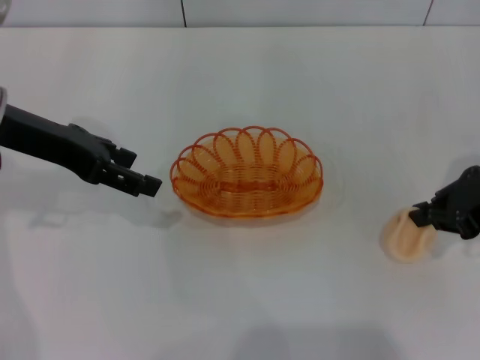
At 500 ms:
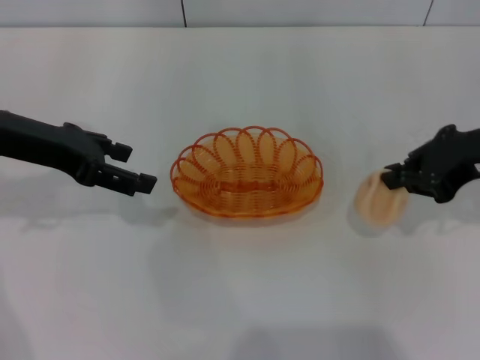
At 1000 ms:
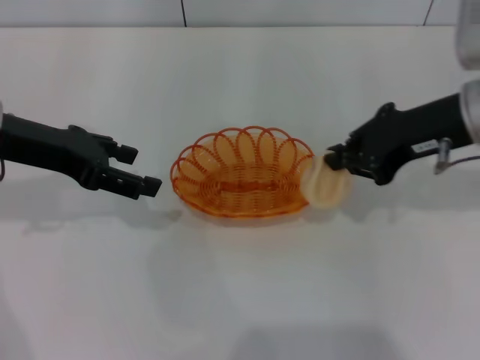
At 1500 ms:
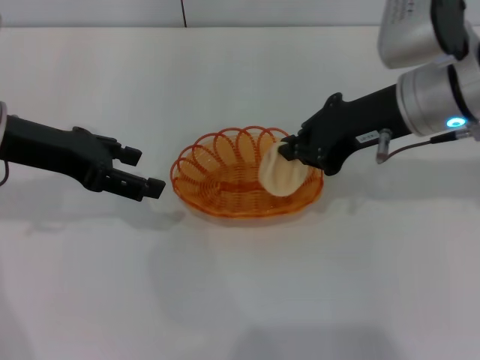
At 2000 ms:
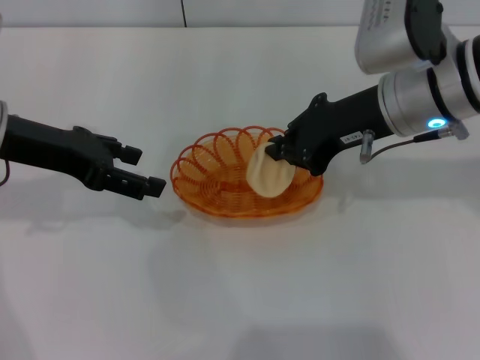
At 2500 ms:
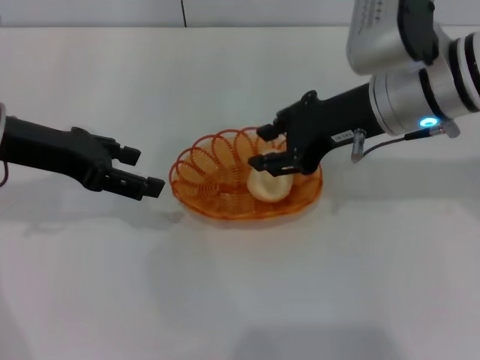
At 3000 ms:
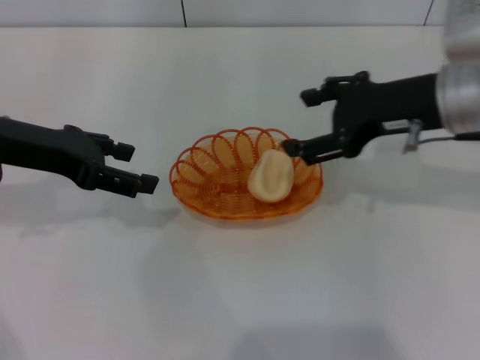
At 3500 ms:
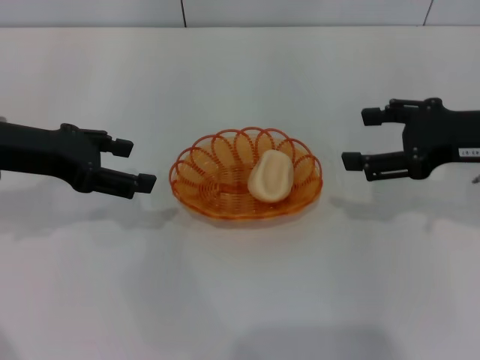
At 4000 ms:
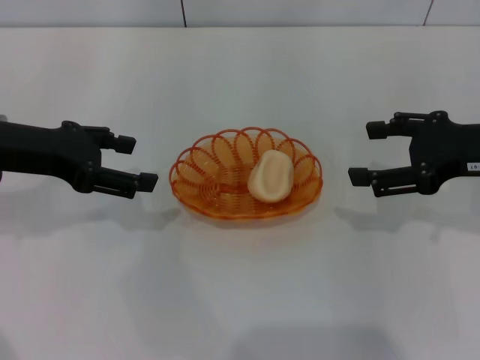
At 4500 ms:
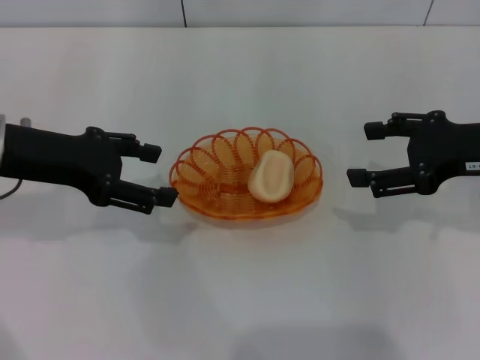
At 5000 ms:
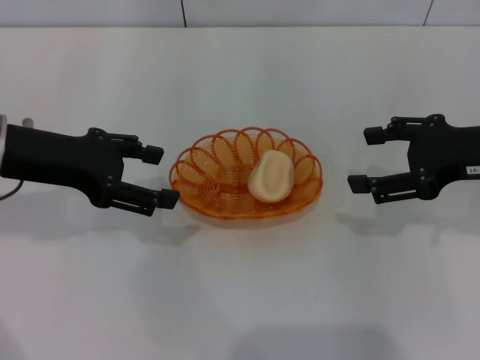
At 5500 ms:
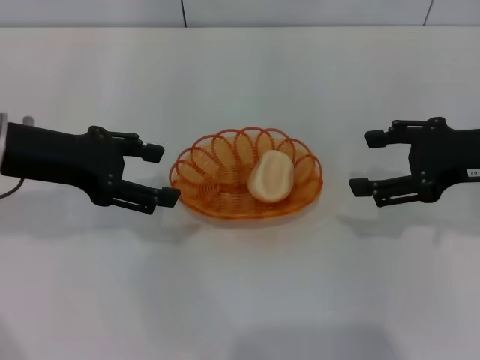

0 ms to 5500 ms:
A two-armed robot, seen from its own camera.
Step, 500 ms to 3000 ms: Place the egg yolk pastry into the basket with the right gripper.
0 ms to 2000 ms: The right gripper travels to the left by about 15 cm.
2000 ms to 3500 ms: The right gripper goes approximately 10 cm to the right, and opens up.
3500 ms to 5500 ms: There are only small adjustments of the grippers.

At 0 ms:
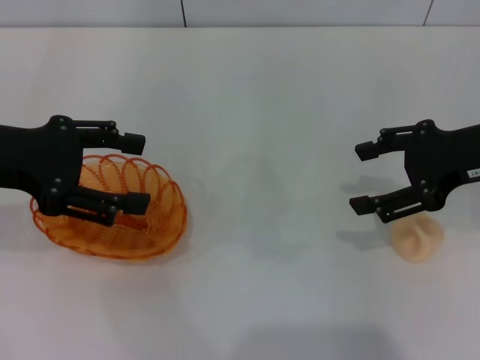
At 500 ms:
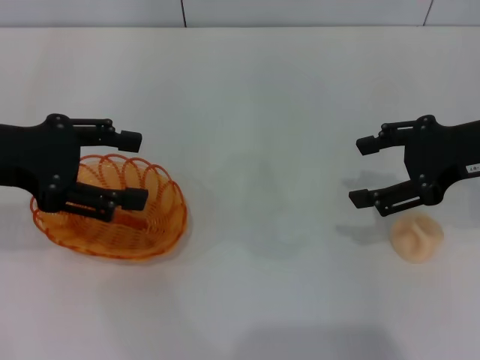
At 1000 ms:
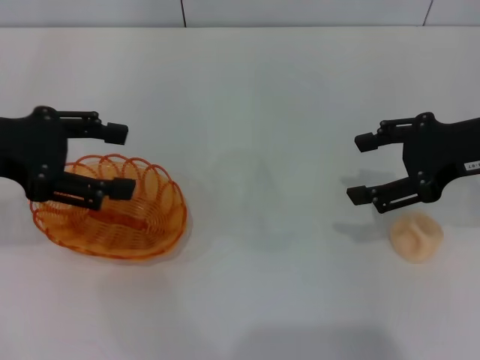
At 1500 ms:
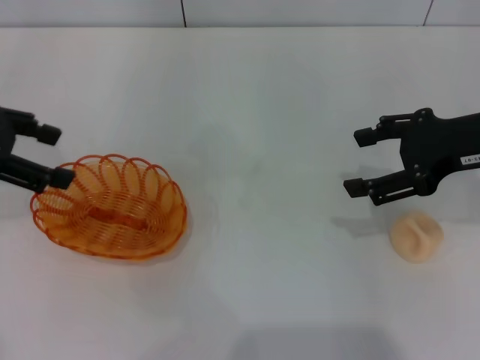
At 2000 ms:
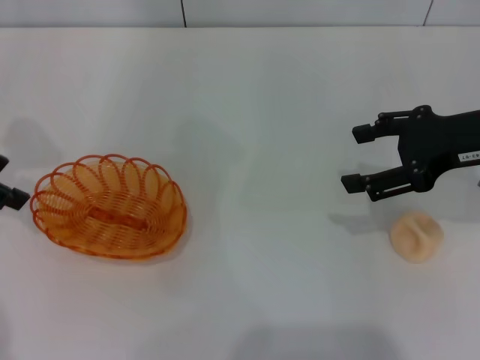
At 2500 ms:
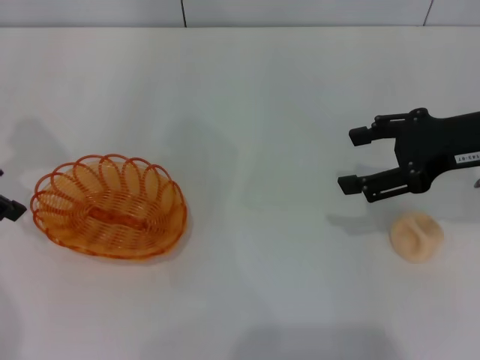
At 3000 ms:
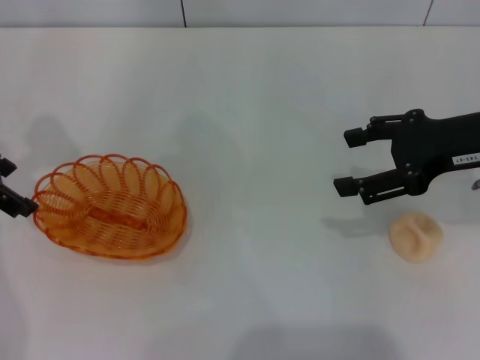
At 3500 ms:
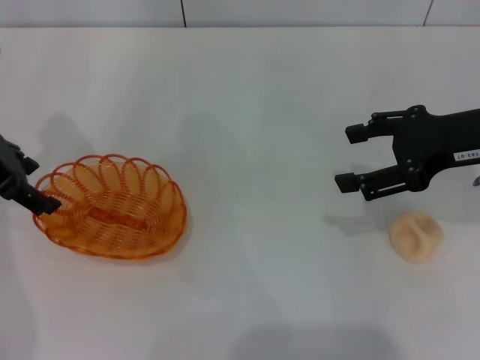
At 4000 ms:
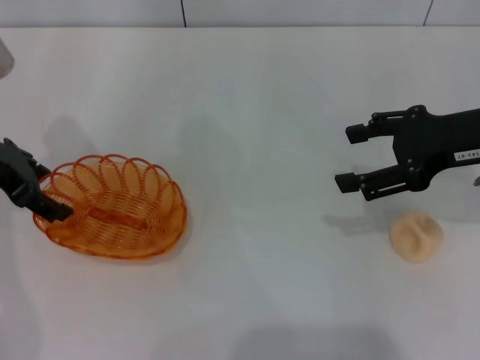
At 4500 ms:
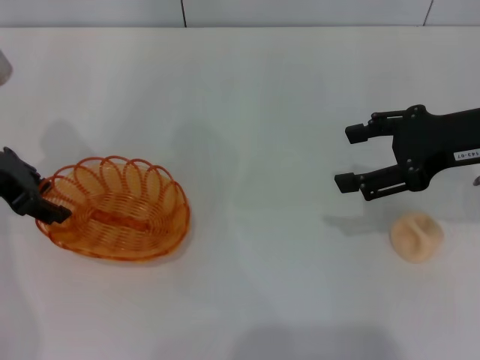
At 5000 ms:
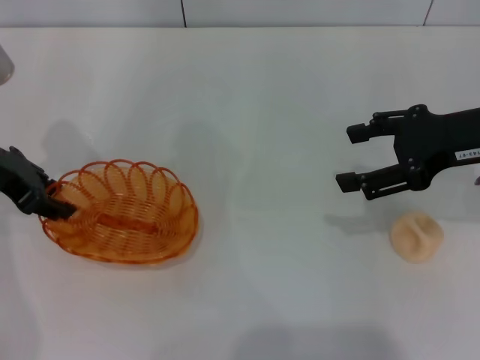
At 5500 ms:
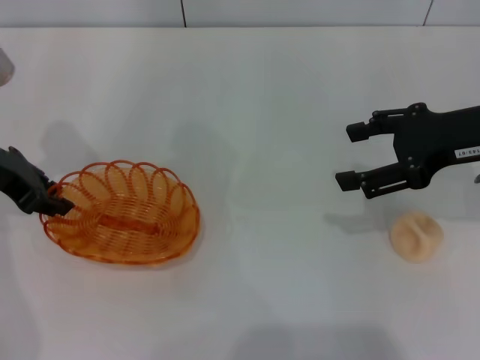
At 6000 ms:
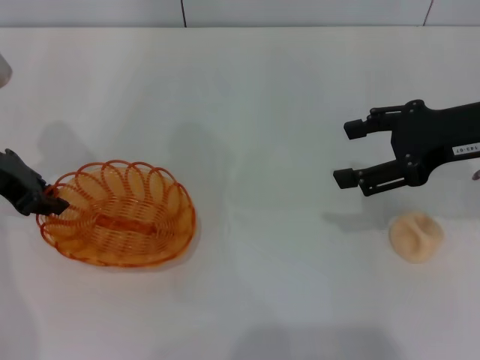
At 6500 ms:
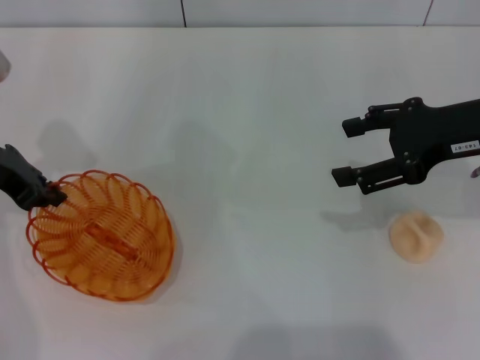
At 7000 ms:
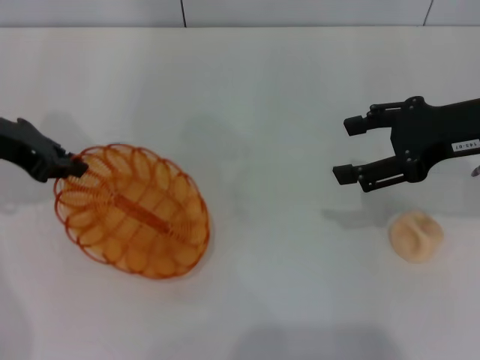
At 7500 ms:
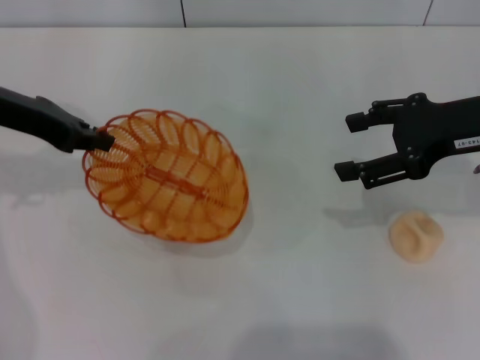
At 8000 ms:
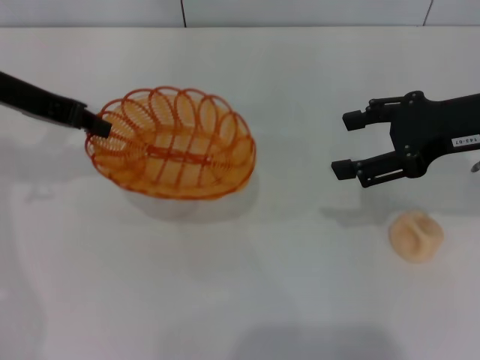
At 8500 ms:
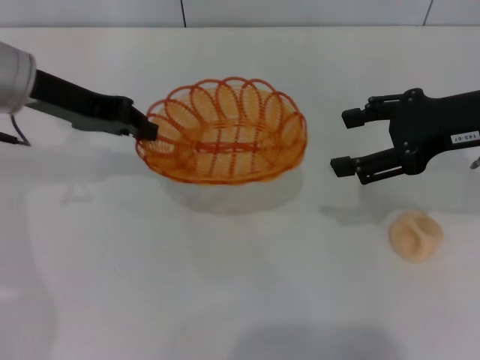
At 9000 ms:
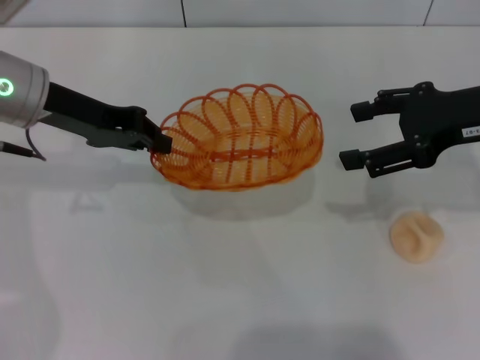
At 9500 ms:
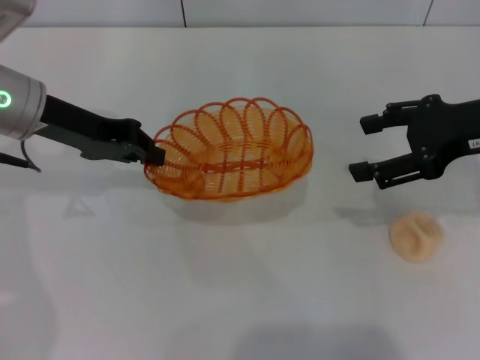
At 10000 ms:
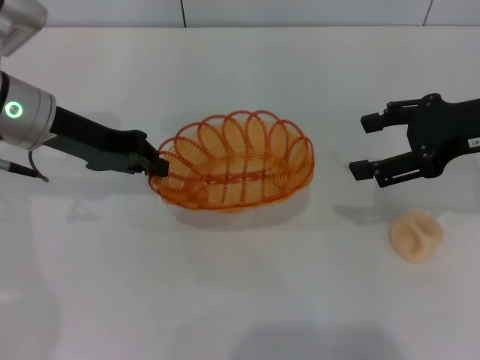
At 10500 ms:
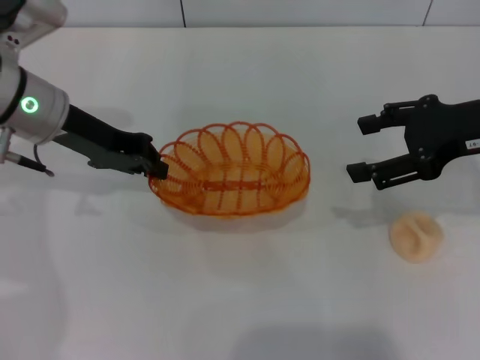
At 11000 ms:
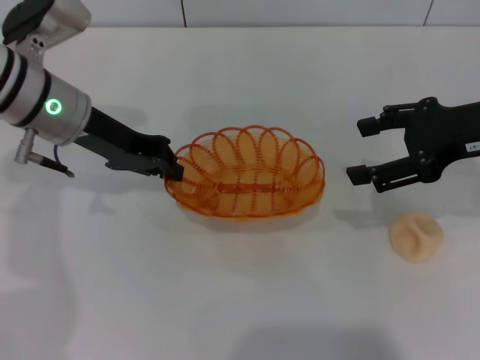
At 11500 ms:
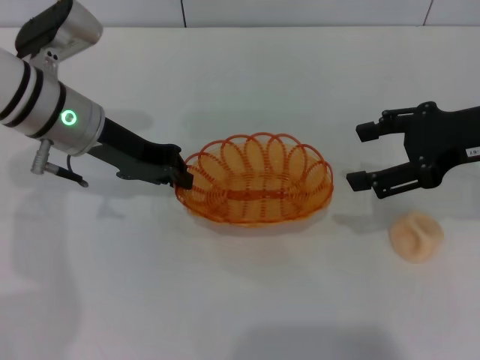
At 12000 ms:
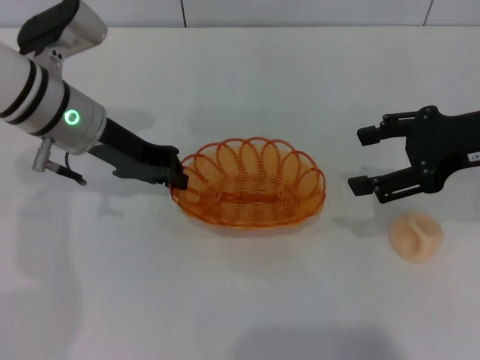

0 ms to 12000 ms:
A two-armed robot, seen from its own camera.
Step, 0 ms to 8500 ms: Pick up the basket with the left gripper.
0 ms to 2000 ms: The left gripper travels to the left by some 5 cm.
2000 ms to 4000 ms: The left gripper is displaced downward by approximately 5 cm.
4000 ms to 6000 ms: The left gripper closes up.
6000 ms to 8000 ms: The left gripper ends up roughly 5 cm from where it was.
8000 ms to 10000 ms: The left gripper changes place by roughly 5 cm.
10000 ms to 12000 ms: The grippers make only small movements.

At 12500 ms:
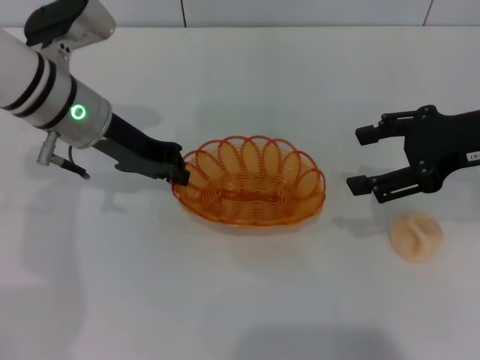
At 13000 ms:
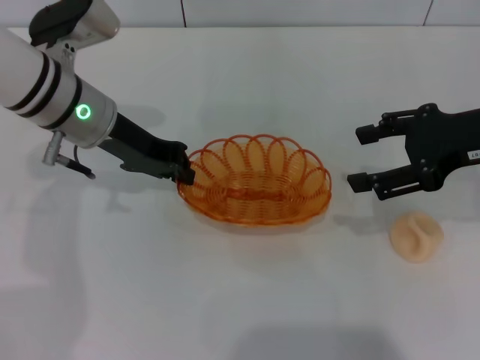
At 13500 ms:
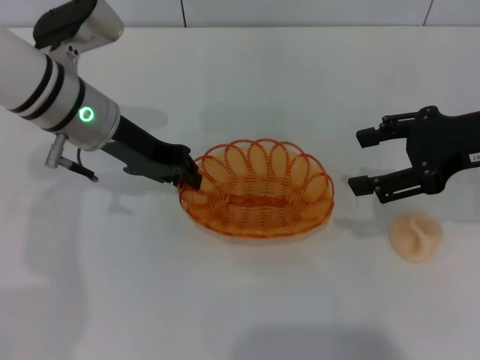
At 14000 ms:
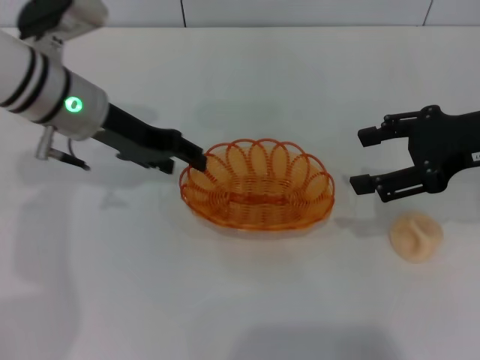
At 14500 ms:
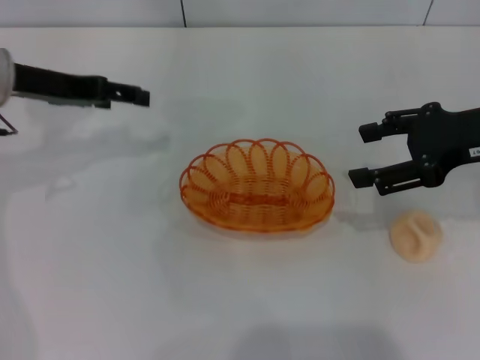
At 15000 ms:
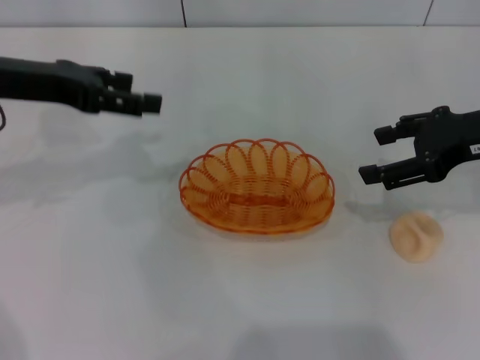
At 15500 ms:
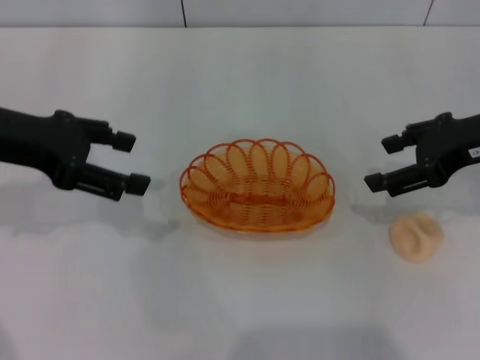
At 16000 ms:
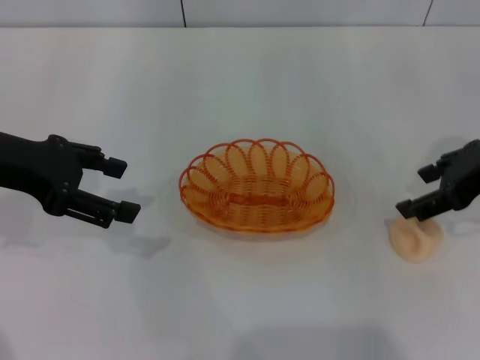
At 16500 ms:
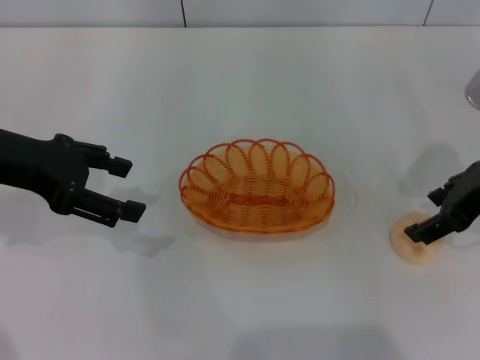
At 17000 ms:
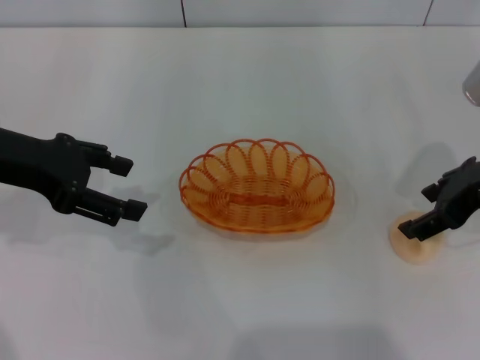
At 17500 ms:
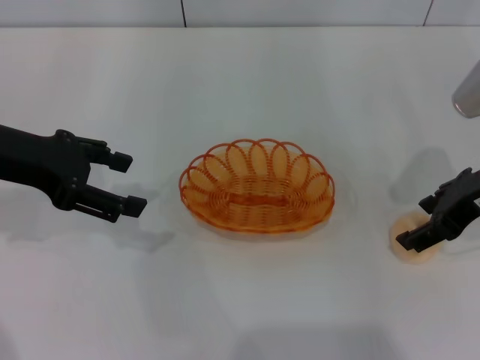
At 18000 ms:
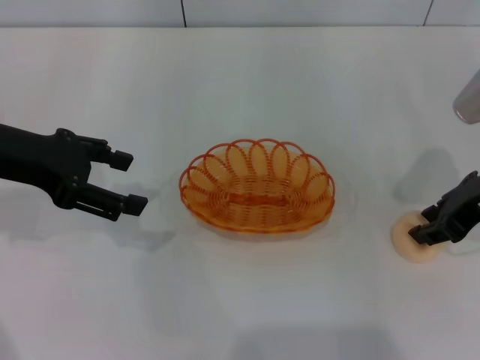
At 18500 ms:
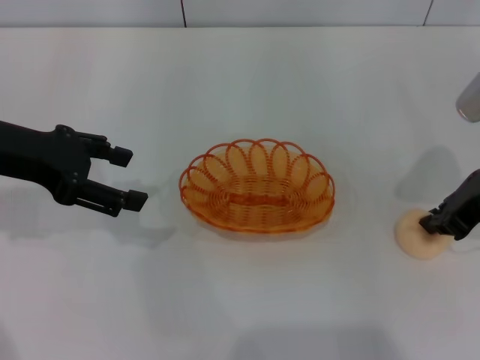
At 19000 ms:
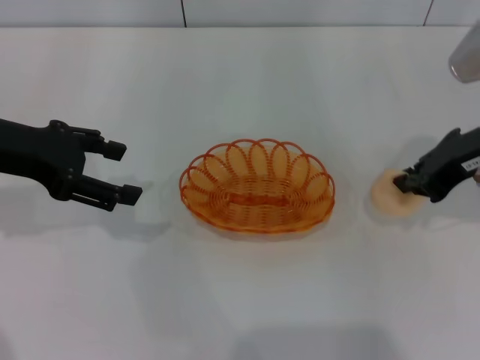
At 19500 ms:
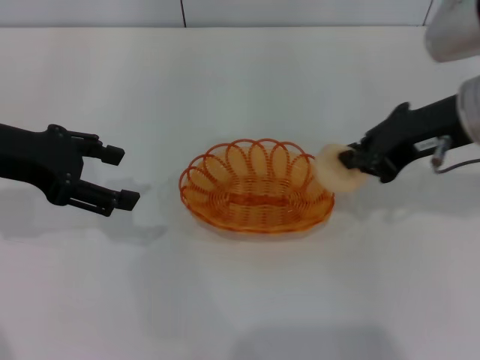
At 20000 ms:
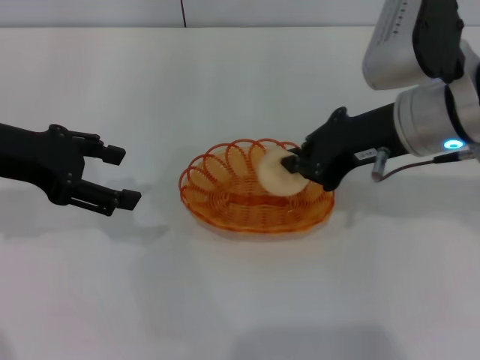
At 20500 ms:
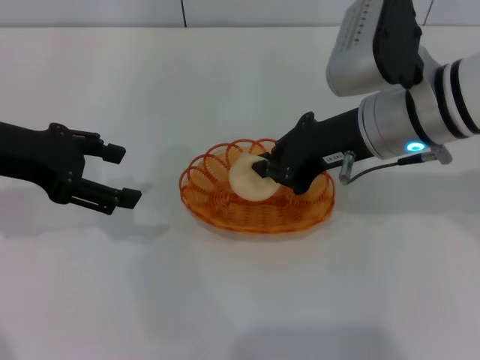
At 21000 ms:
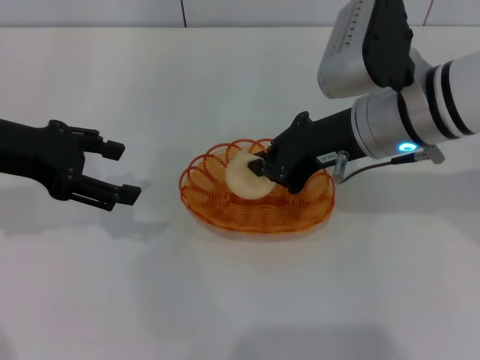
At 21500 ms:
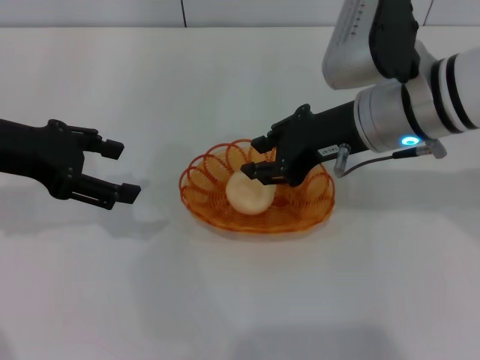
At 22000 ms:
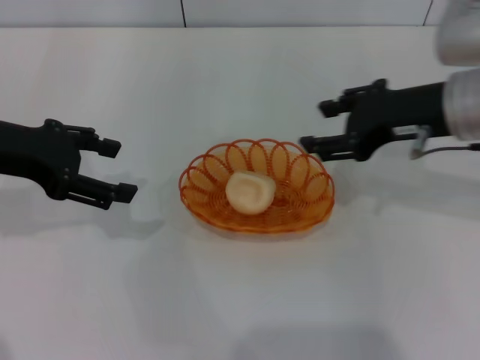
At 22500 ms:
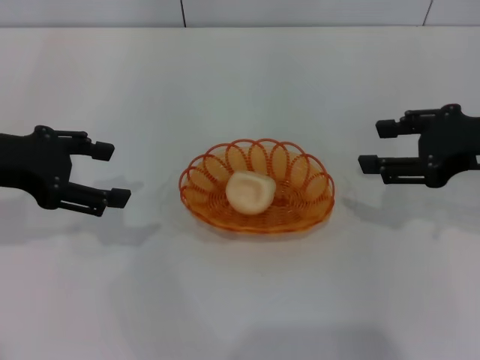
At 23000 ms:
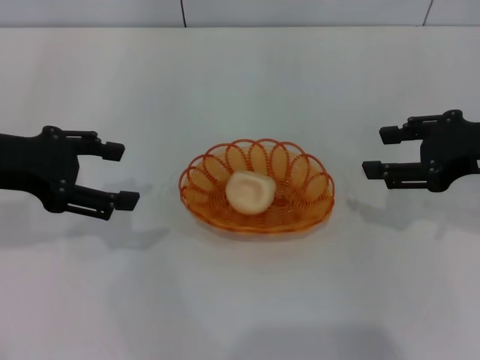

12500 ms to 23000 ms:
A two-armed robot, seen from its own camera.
Step, 12500 ms to 15500 ms: Place the basket in the center of view with the left gripper.
Step, 16000 ms to 19000 ms: Pick up the egg yolk pastry with the right gripper.
Step, 19500 ms to 21500 ms: Place the egg yolk pastry into the basket with the right gripper.
12500 ms to 14500 ms: The left gripper travels to the left by roughly 10 cm, and opens.
14500 ms to 16500 ms: The left gripper moves backward, about 5 cm.
16500 ms to 19000 ms: The right gripper closes up.
19000 ms to 21000 ms: The right gripper moves to the left, approximately 10 cm.
21000 ms to 23000 ms: The right gripper is displaced to the right by approximately 15 cm, and opens its fingers.
